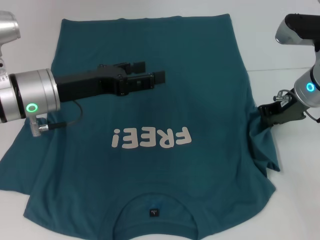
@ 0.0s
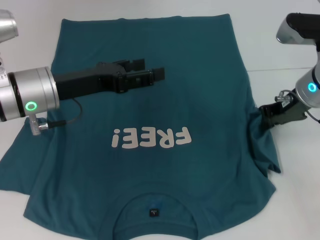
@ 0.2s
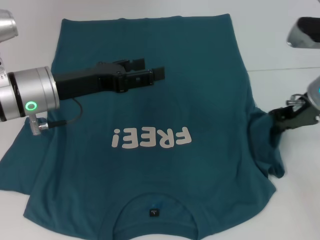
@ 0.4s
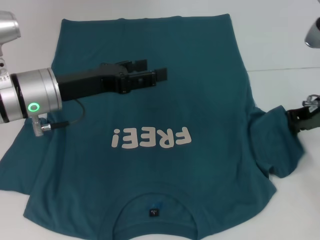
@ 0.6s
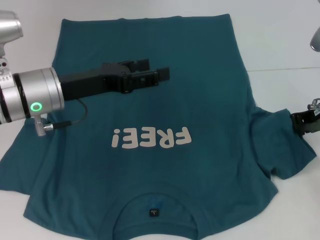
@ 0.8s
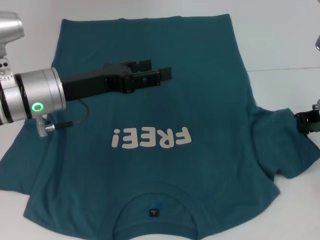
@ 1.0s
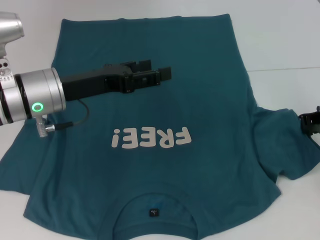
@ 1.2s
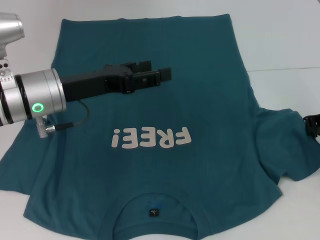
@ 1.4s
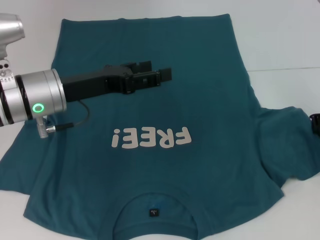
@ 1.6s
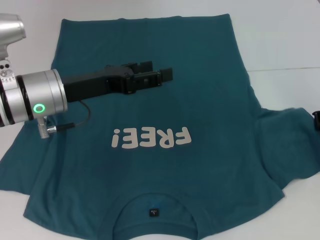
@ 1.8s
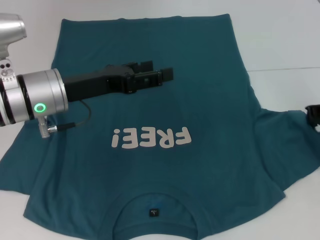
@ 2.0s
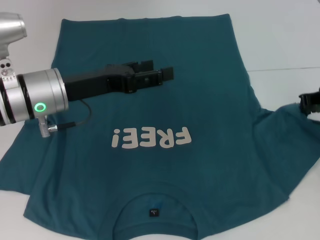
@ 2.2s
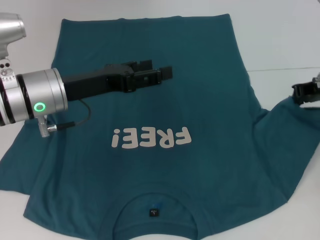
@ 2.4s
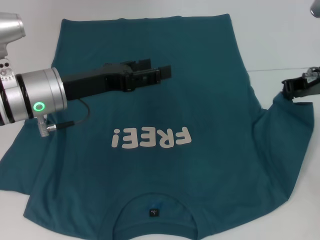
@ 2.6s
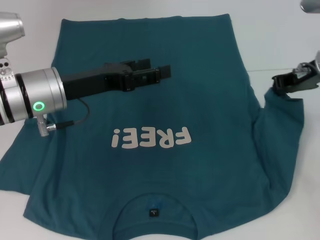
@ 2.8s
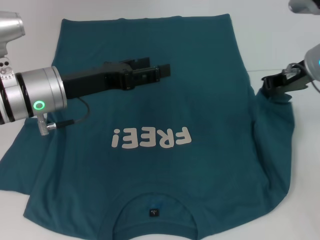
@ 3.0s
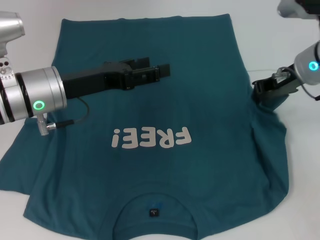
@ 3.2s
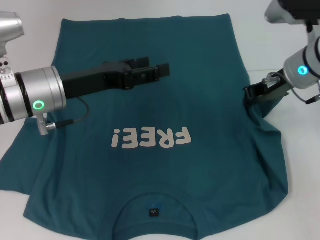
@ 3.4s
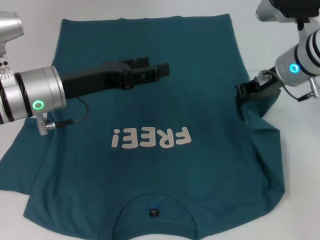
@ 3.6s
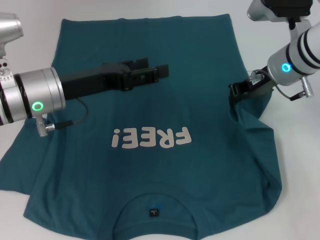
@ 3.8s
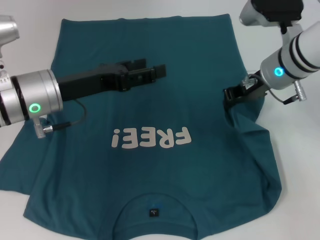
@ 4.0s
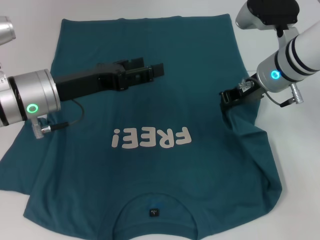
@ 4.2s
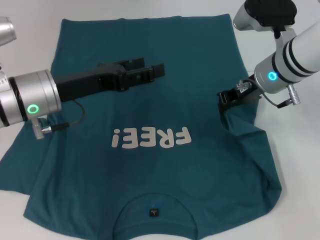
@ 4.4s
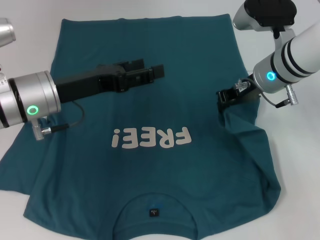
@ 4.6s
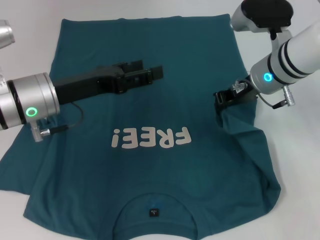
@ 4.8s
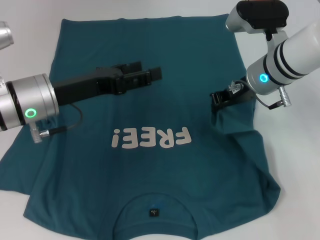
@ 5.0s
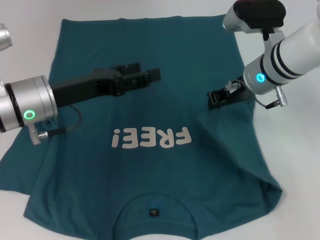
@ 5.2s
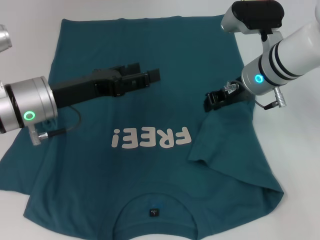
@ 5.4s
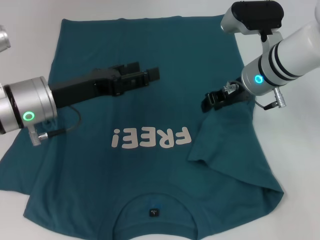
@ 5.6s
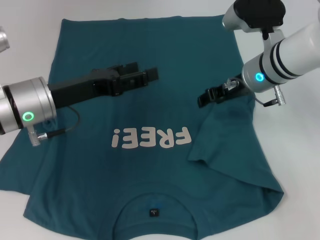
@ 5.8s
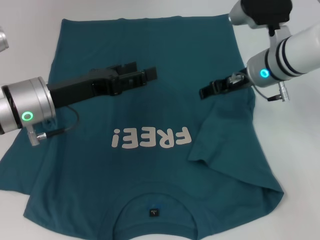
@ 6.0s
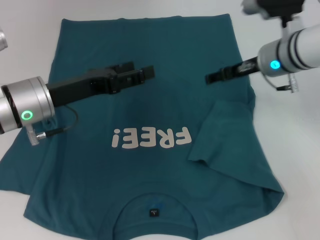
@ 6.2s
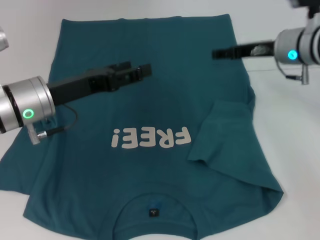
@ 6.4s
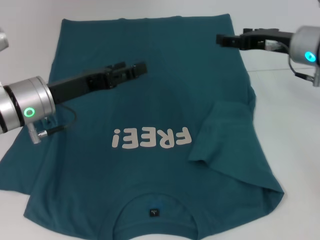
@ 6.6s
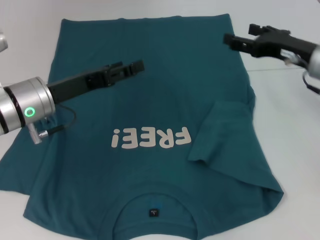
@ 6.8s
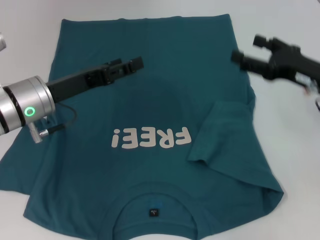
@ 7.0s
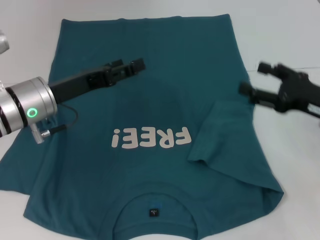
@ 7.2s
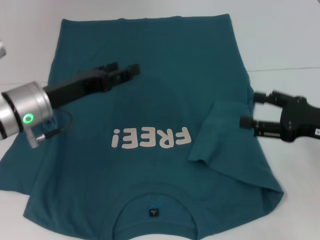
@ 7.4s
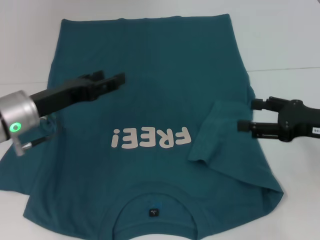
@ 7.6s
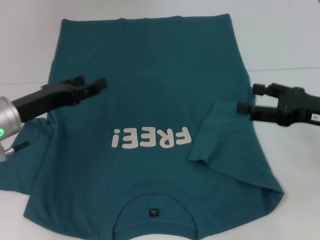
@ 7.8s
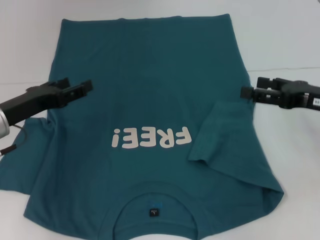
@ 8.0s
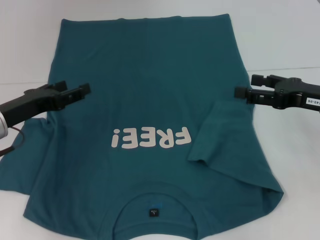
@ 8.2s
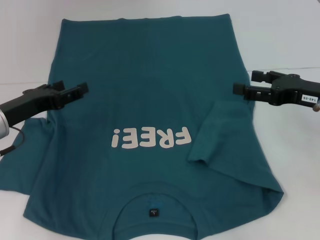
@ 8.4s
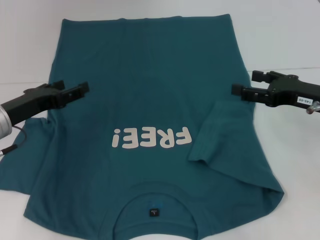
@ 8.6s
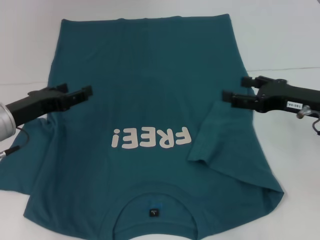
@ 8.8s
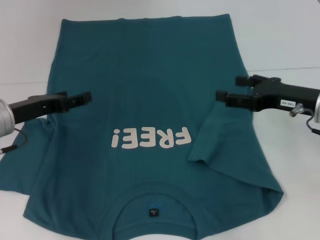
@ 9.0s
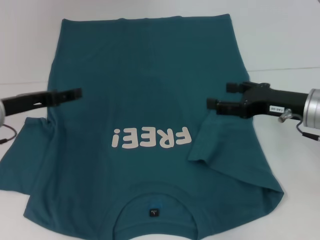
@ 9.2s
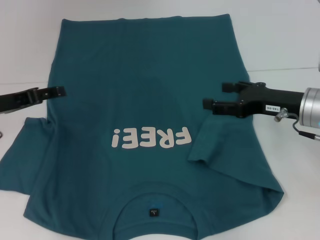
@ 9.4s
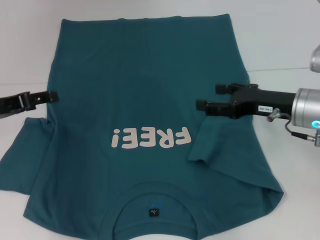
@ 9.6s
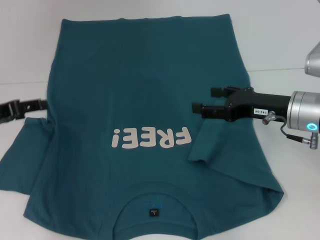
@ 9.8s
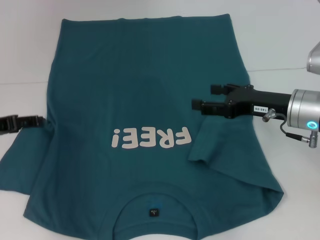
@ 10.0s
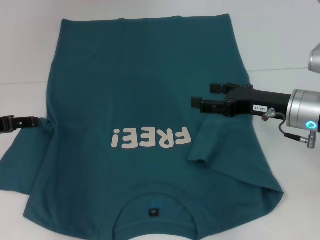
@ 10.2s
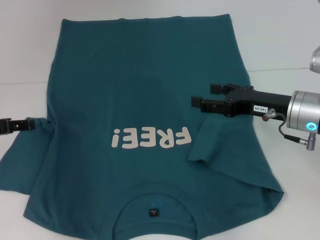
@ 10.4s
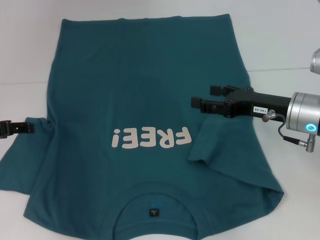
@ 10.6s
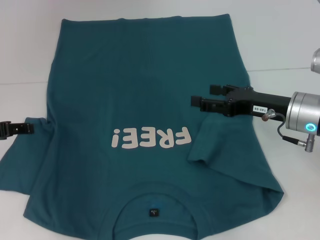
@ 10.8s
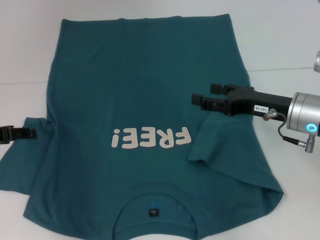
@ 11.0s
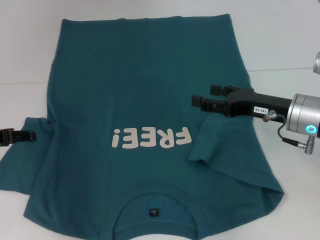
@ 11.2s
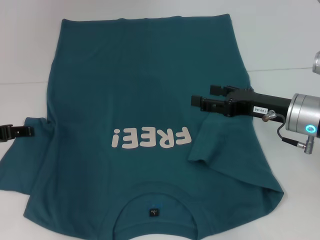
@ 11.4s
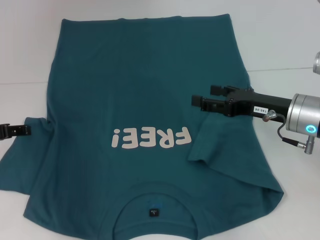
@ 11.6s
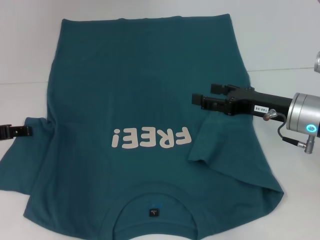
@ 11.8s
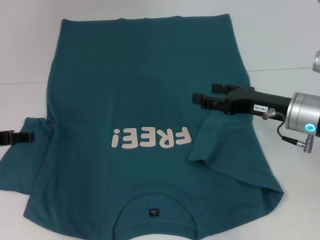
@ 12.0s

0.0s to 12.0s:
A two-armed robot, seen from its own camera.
Step, 0.0s to 5.2s: Fold the bottom right sleeve to the right.
0.0s to 1.6s: The right gripper shifts approximately 10 cm to the right.
1.6s to 3.0s: The right gripper travels to the left by some 5 cm.
3.0s to 4.4s: The right gripper goes approximately 5 cm to the left.
4.4s to 6.0s: The right gripper opens.
6.0s to 7.6s: The right gripper travels backward and to the right by approximately 20 cm, and opens up.
7.6s to 9.0s: The right gripper ends up some 5 cm from where it was.
9.0s to 10.4s: The left gripper shifts about 5 cm to the left.
10.4s to 12.0s: The grippers move only a little.

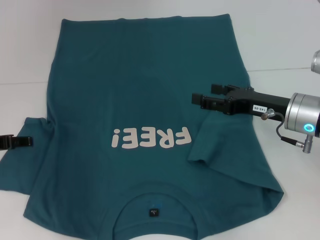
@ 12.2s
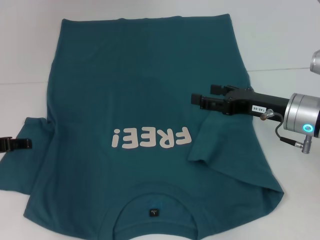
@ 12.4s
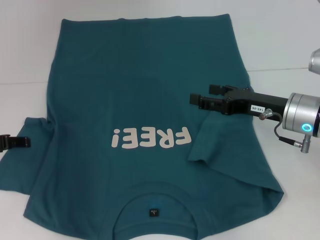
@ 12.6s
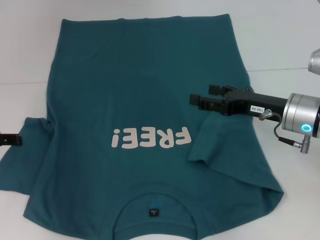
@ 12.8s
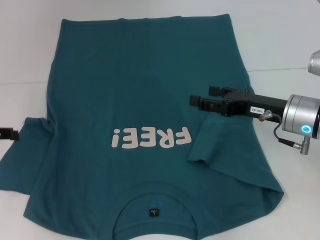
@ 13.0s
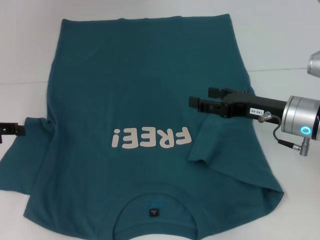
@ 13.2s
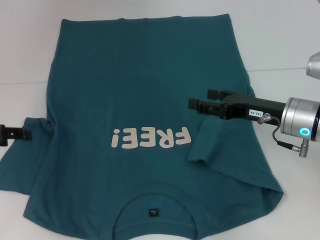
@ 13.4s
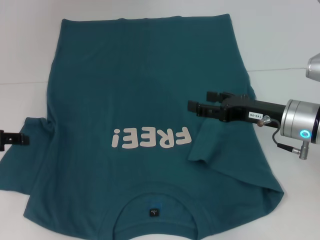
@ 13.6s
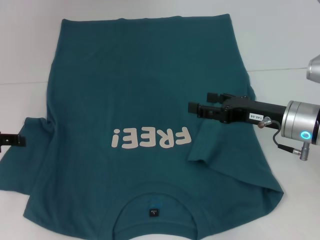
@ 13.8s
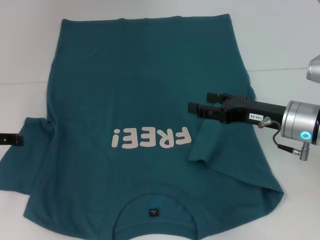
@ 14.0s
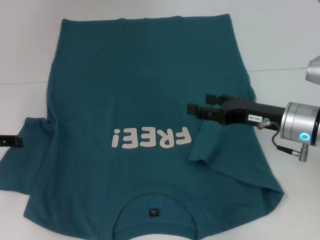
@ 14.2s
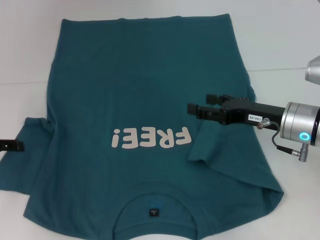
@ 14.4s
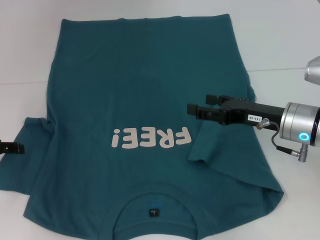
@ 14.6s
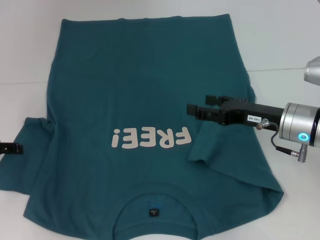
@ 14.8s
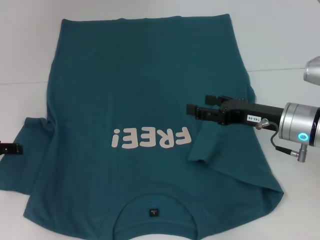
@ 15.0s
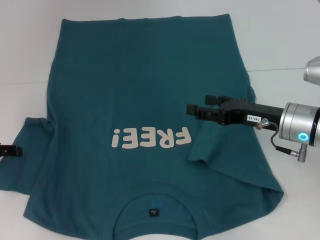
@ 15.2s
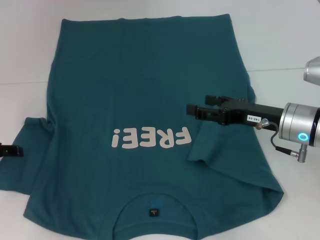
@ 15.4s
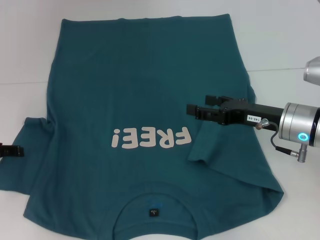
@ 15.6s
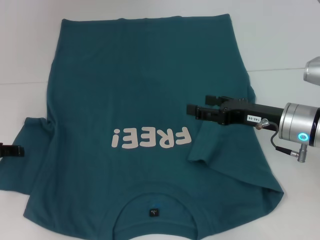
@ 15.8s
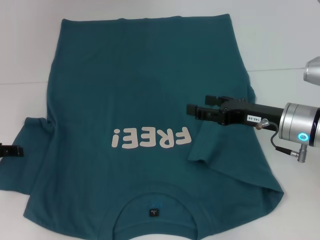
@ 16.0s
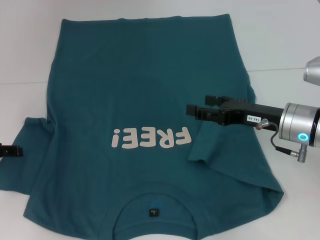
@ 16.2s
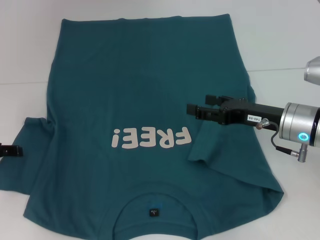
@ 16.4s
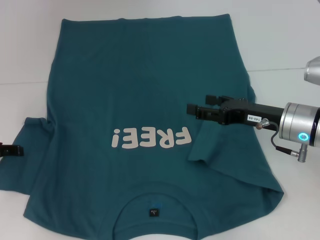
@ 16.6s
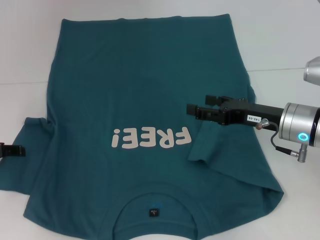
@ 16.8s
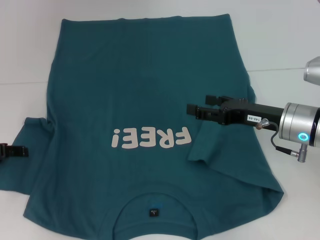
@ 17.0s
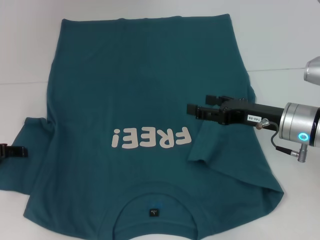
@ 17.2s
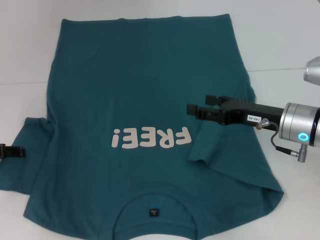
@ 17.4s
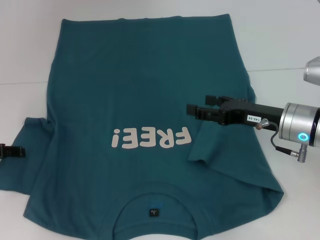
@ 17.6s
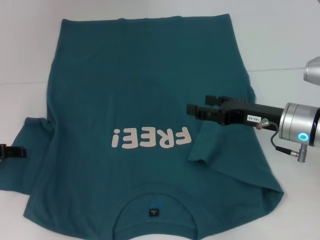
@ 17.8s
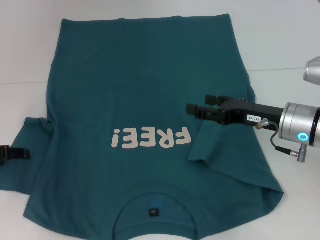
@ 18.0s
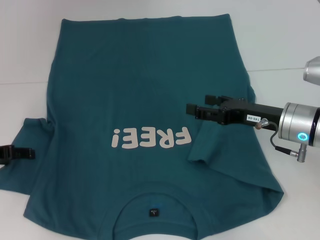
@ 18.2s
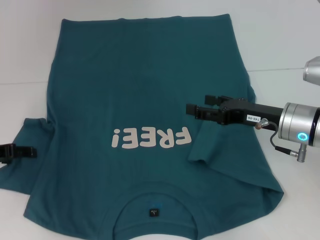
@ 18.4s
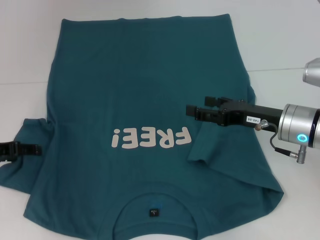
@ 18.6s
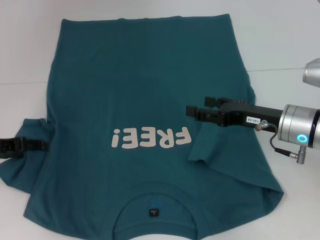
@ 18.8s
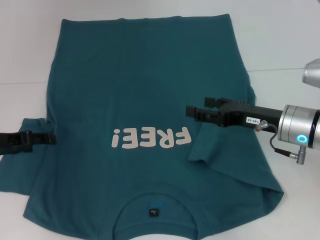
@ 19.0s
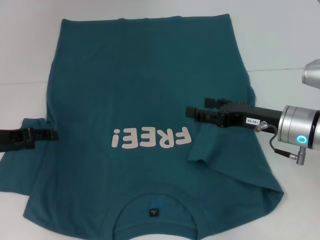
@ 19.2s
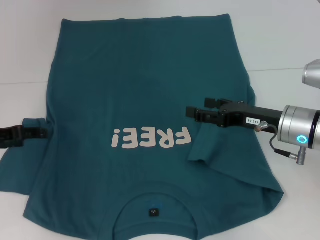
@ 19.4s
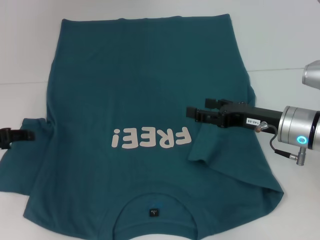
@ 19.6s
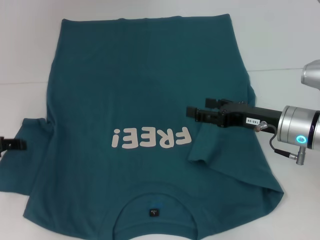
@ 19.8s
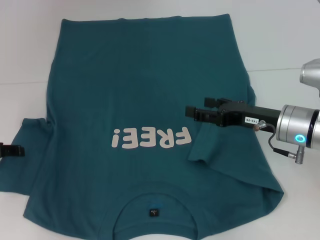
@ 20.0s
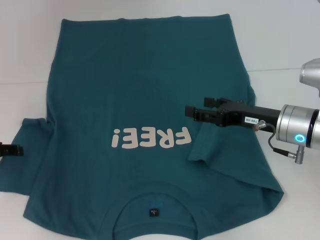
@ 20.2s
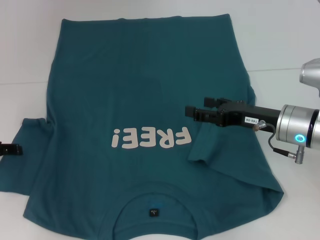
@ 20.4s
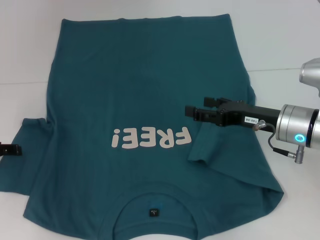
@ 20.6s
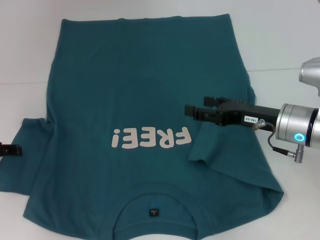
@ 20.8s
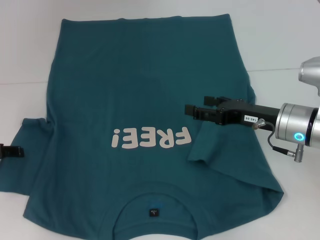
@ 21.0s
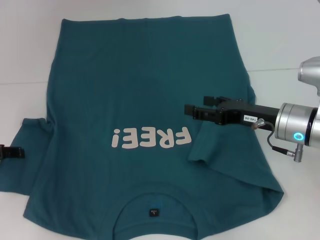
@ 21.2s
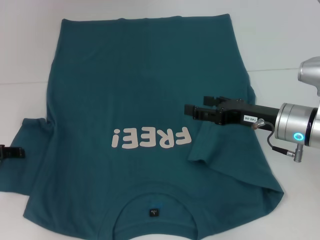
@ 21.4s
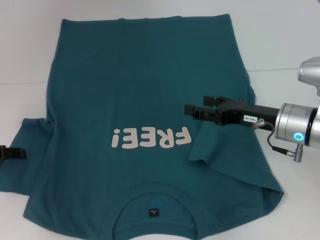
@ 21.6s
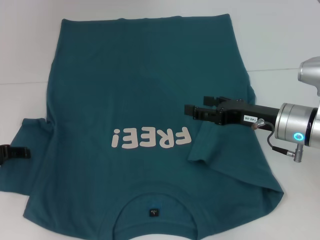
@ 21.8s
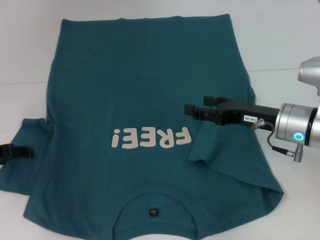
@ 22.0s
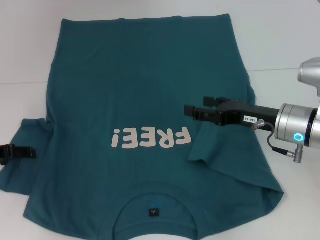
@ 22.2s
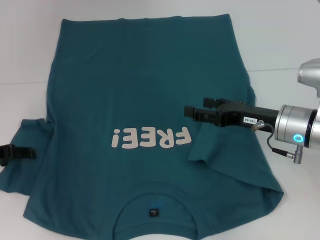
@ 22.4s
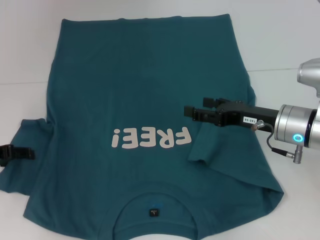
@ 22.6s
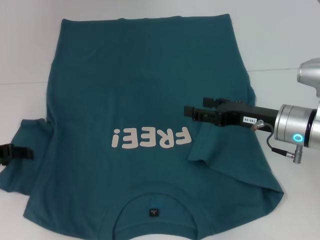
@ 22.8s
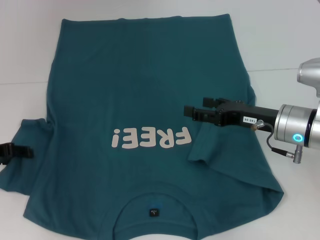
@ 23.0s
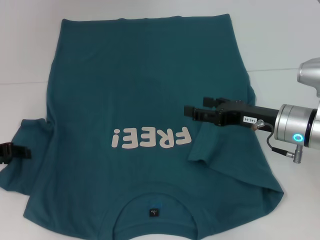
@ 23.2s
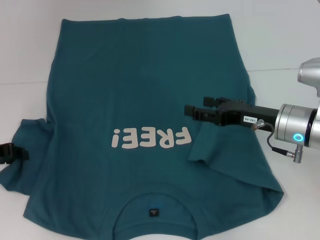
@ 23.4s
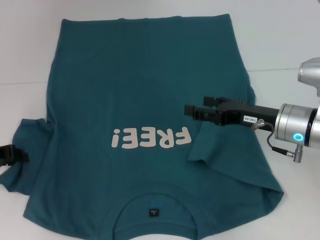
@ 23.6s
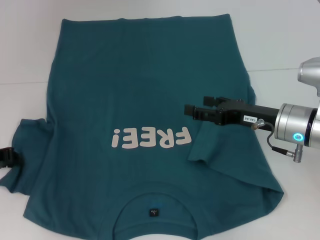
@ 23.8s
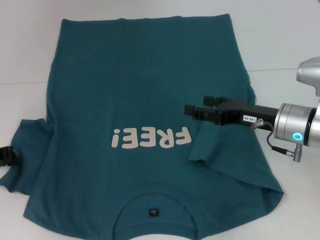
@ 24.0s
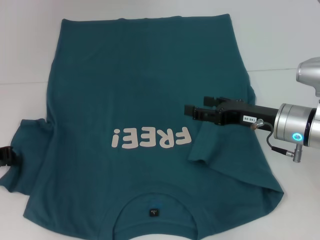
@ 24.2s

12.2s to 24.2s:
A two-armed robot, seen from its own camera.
12.2s to 15.2s: The grippers make only small movements.
15.2s to 16.6s: Both grippers stay about where they are.
18.2s to 19.8s: The grippers move only a little.
19.8s to 21.2s: The two grippers keep their place.
21.2s to 22.6s: The two grippers keep their place.
